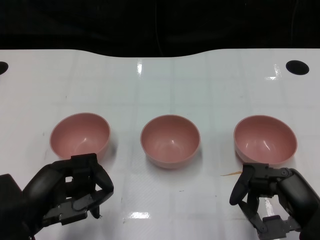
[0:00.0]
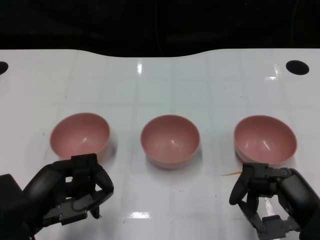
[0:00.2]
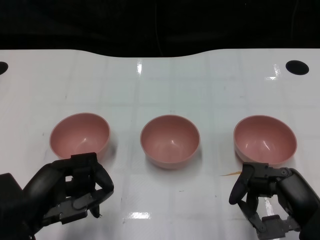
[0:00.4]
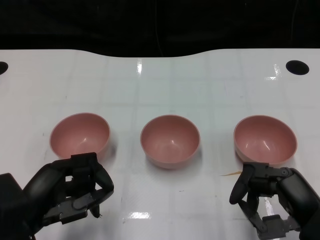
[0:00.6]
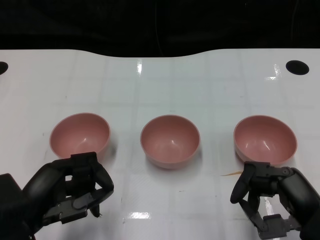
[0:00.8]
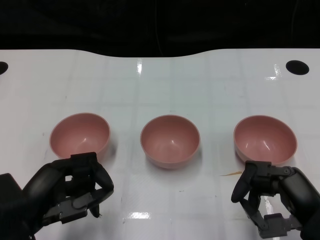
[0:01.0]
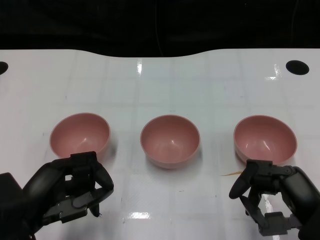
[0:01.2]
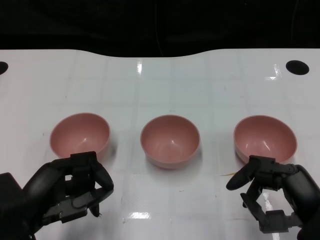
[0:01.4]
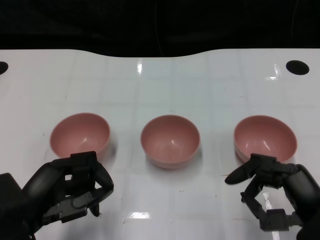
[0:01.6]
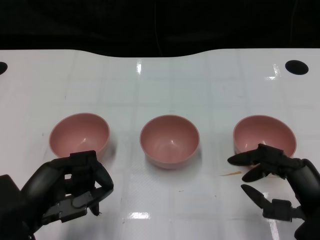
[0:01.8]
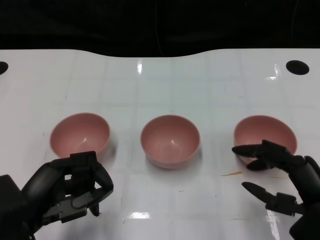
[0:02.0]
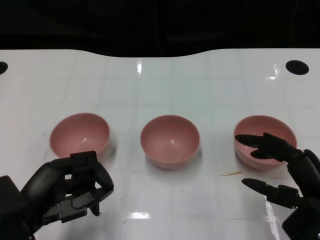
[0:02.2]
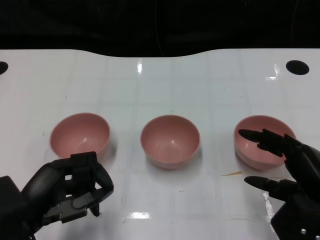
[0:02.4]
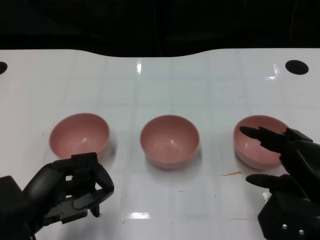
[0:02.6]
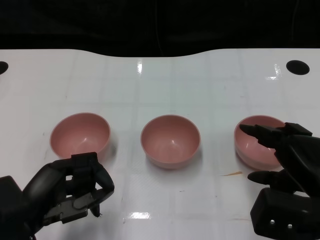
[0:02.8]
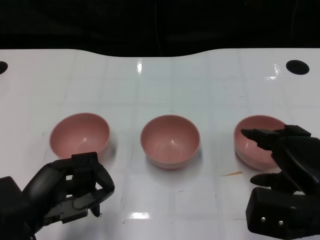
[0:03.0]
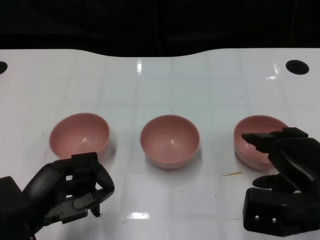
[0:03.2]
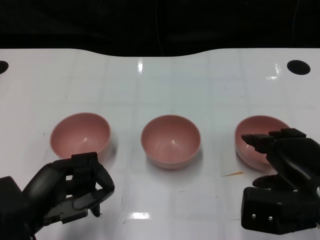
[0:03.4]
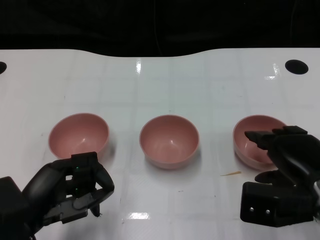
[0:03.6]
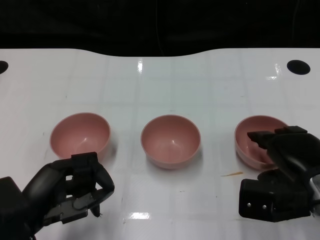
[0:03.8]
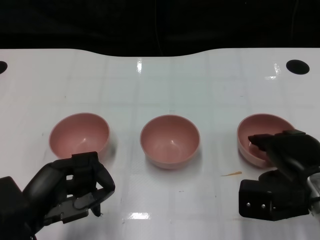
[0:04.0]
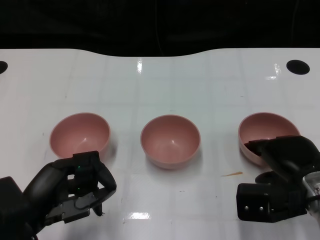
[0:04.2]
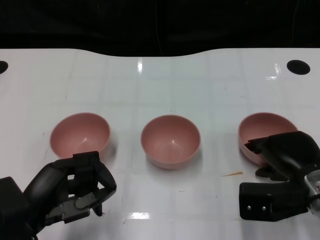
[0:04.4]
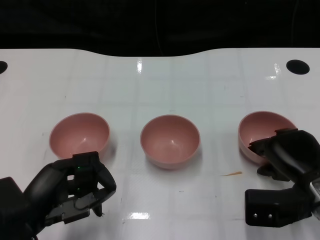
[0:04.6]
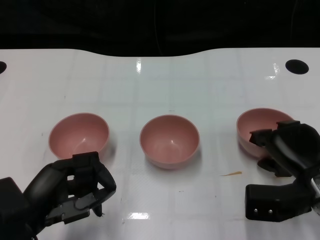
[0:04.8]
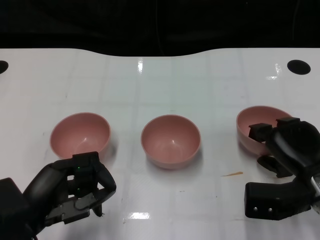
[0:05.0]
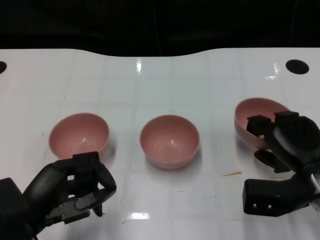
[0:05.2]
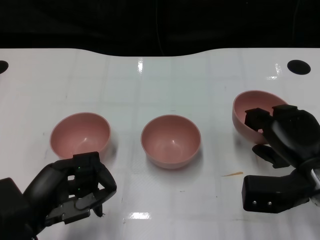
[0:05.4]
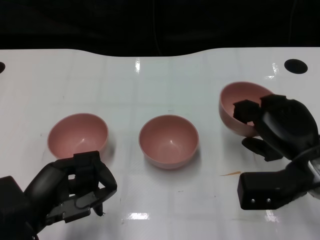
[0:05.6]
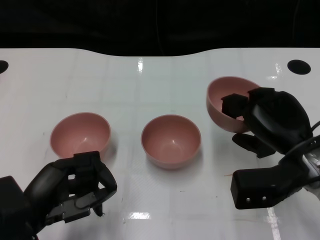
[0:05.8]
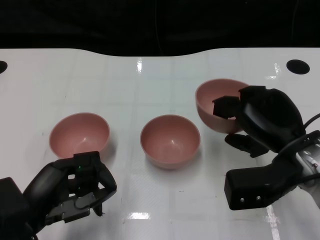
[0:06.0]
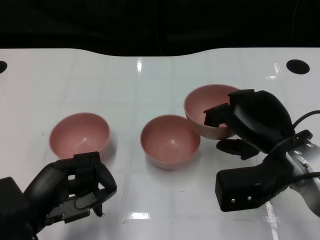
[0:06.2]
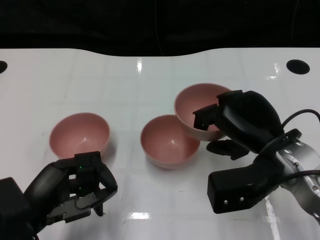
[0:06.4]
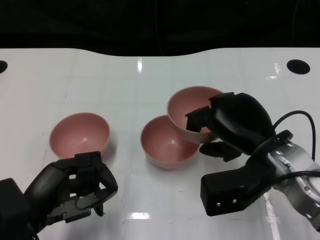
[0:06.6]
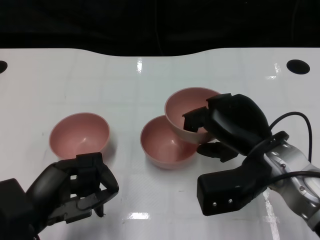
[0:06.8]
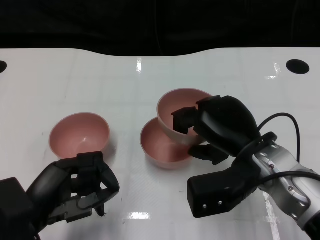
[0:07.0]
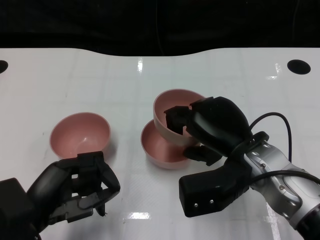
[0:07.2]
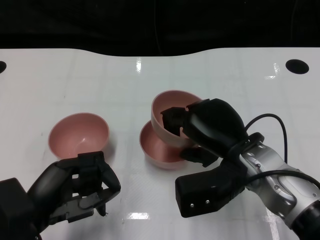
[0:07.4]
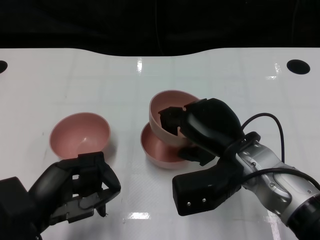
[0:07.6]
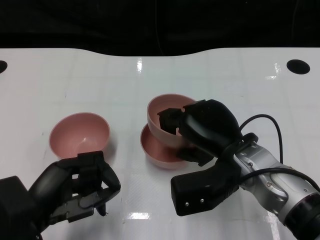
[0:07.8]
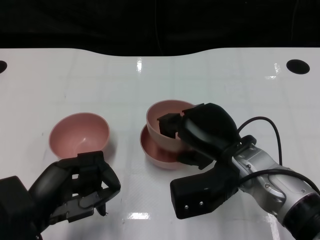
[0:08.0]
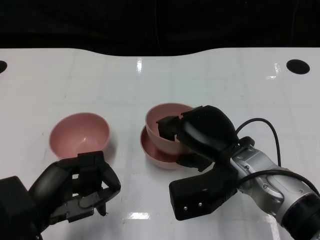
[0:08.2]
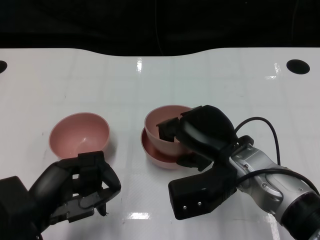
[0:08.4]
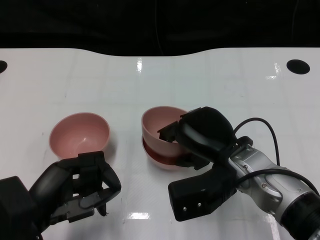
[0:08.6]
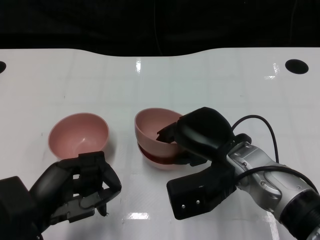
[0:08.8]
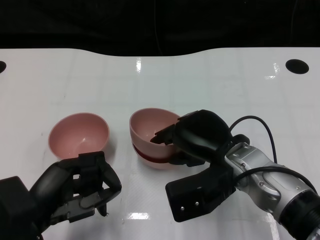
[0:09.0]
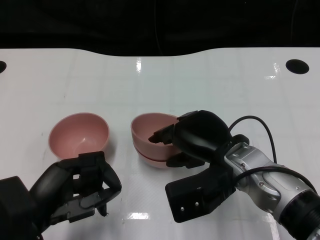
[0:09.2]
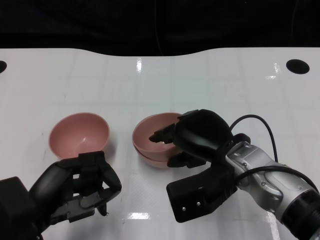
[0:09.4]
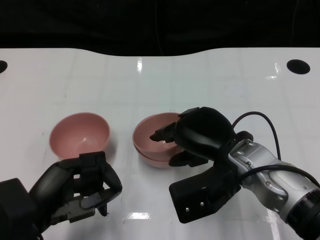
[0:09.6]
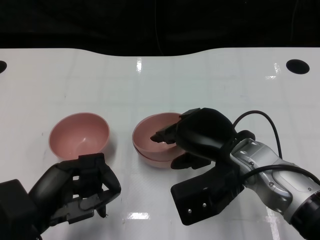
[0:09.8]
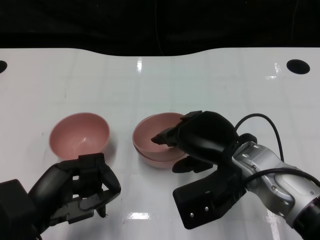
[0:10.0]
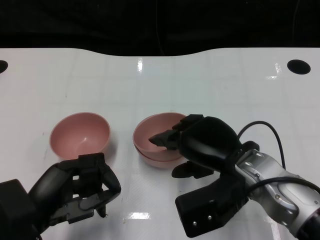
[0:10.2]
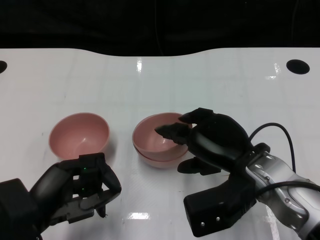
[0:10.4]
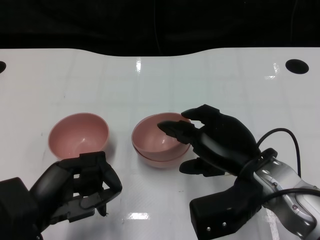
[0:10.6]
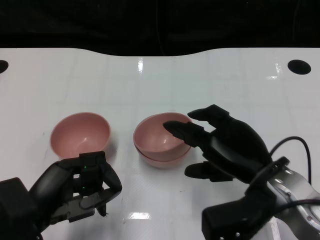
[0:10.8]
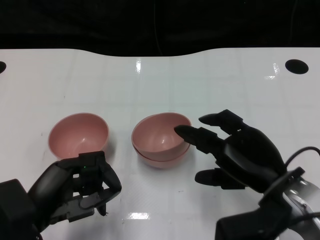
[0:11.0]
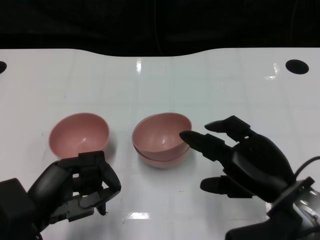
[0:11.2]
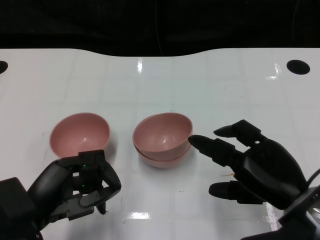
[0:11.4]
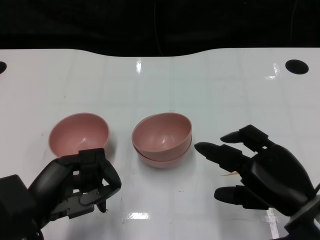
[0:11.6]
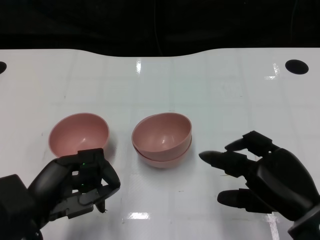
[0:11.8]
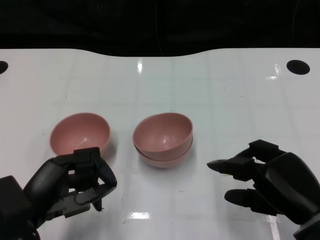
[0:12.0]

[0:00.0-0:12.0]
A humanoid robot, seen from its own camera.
Task of the whole recording: Pick up the bowl on one side of the table and place it on top of the middle bowl, then pick up the bowl on the other side of the table and place it on top of the middle bowls.
Step, 0:01.4 to 0:04.8: Grasp the bowl on the right with the right gripper.
Step, 0:05.2 to 0:10.6: Place the bowl on the right onto the bowl in the middle with right gripper.
0:03.0 to 0:04.4: The right hand is displaced forward by roughly 5 cm.
0:04.4 to 0:06.0: The right hand goes roughly 5 cm upward.
0:06.0 to 0:07.6: The right hand heads to the left, covering some 10 cm.
0:07.6 to 0:10.4: The hands make only small movements.
0:10.4 to 0:12.0: The right hand heads to the right and backward, covering about 10 cm.

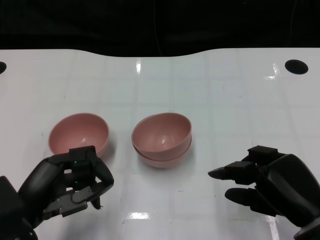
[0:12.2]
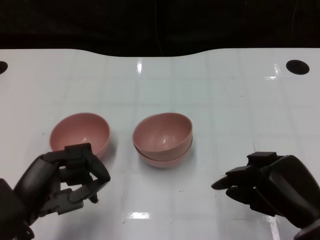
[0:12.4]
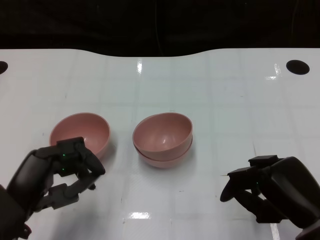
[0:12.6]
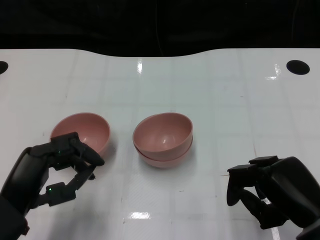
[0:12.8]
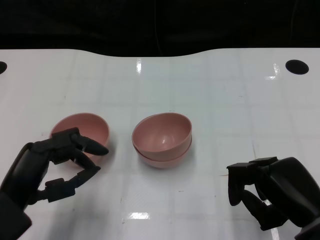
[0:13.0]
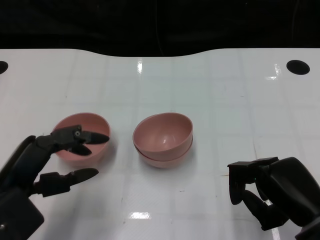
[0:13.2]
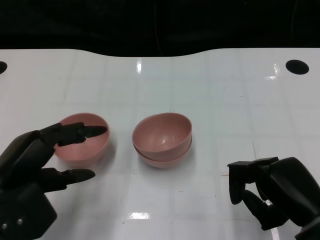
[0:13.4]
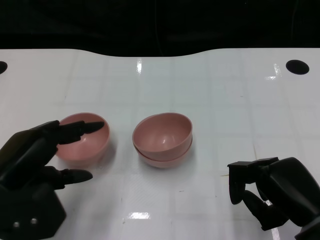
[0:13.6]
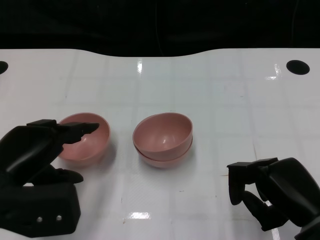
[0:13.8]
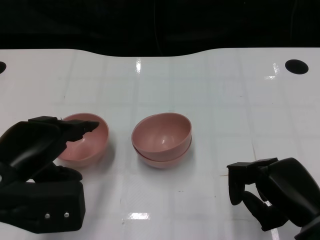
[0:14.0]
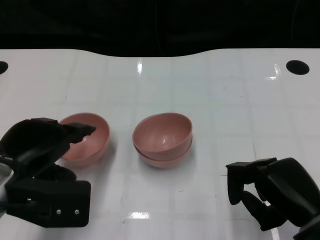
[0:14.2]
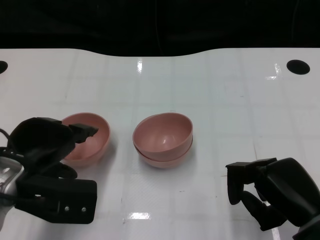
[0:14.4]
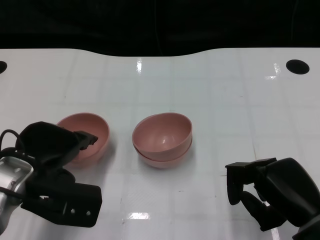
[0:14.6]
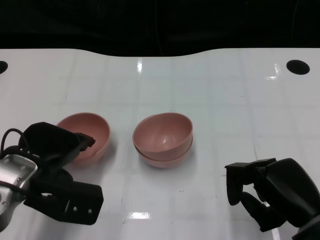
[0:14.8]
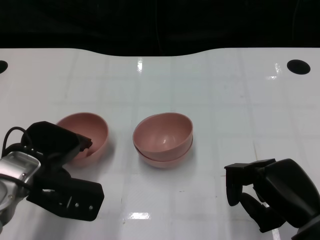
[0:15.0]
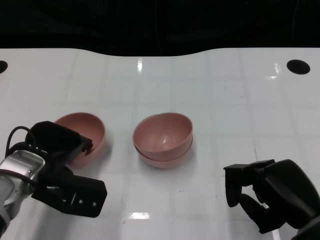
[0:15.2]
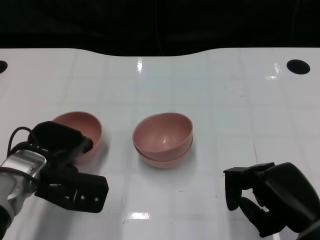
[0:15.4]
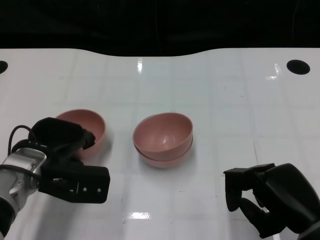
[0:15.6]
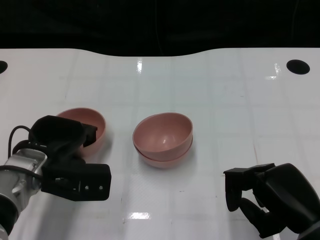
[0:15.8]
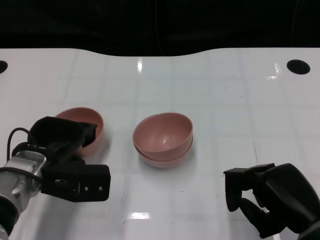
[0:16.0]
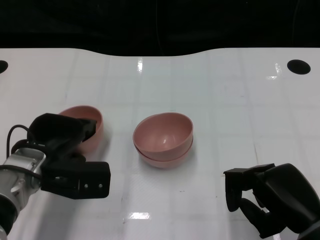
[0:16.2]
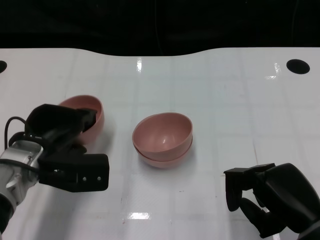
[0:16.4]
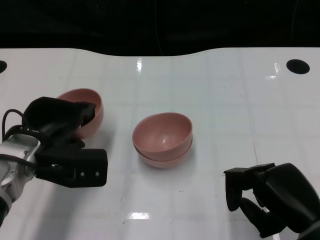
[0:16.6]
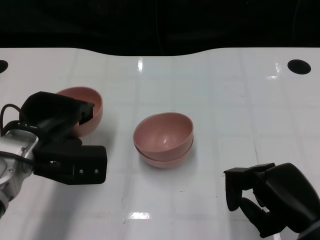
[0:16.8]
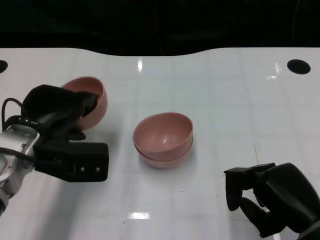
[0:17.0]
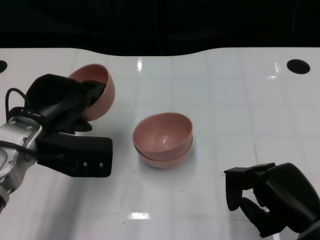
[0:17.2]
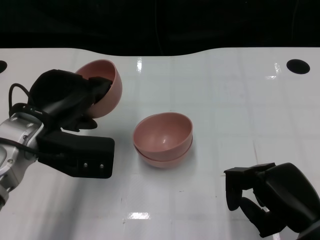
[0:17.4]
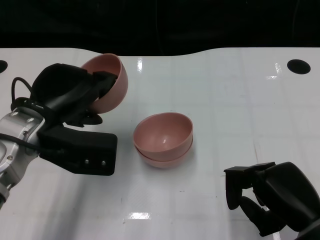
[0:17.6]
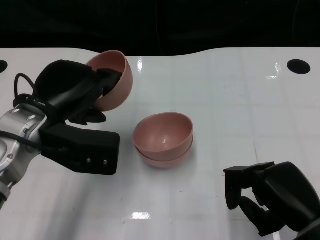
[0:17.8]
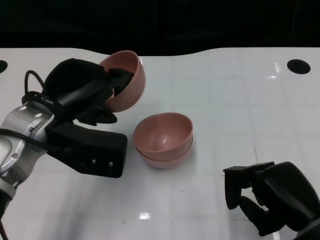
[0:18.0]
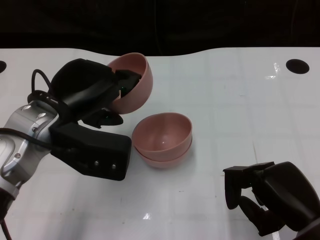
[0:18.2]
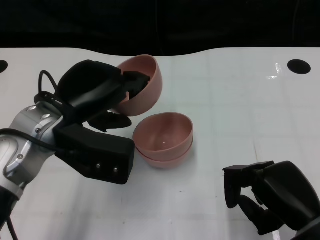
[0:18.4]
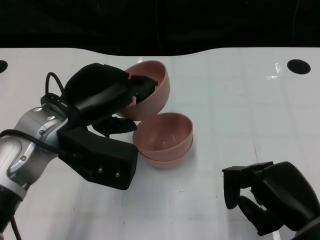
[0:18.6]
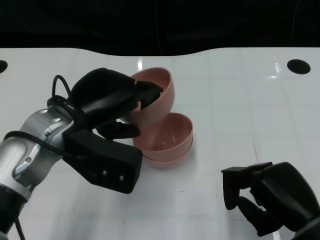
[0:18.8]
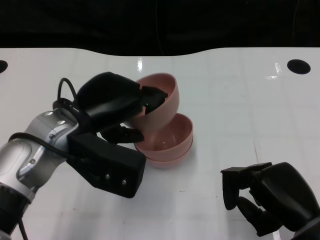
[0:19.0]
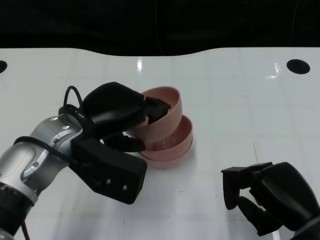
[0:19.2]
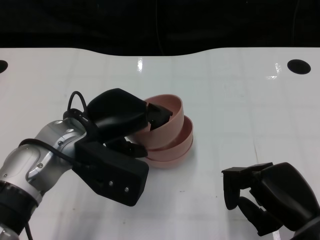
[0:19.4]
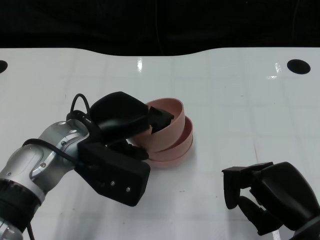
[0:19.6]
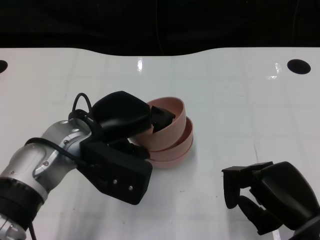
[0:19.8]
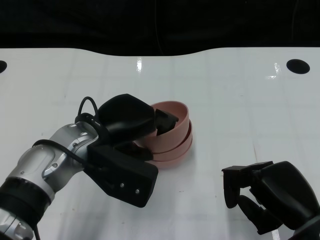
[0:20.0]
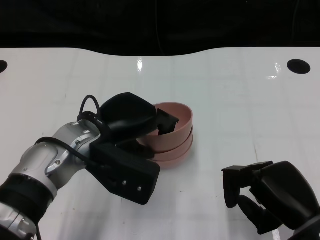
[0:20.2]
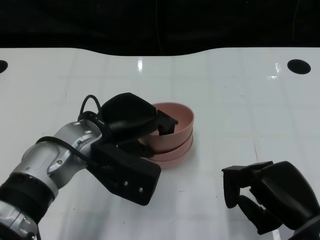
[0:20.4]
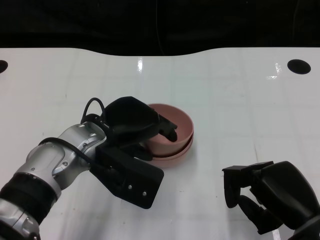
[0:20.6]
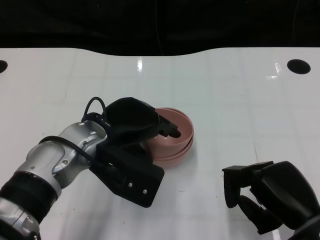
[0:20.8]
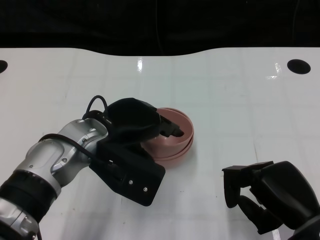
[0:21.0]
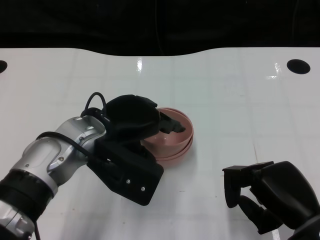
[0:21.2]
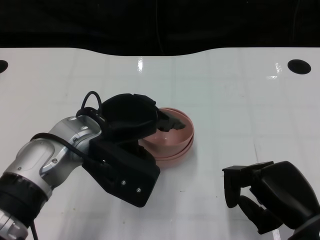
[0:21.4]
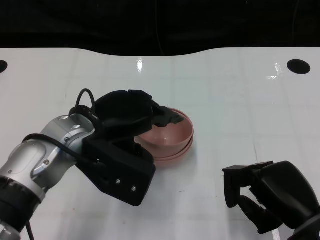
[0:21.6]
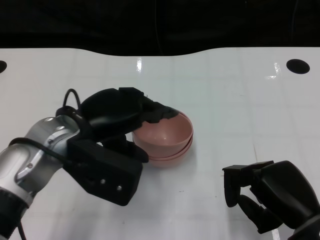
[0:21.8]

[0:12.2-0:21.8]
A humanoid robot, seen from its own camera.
Task of the whole recording: Pick up the bowl on one side of the table and place it on top of the middle bowl, then pick up the bowl on the other side of the table and place it on top of the middle bowls.
Step, 0:12.2 to 0:16.2: Grasp the bowl on the left with the left gripper.
0:12.2 to 0:13.8: The left hand is displaced upward by some 5 cm.
0:13.8 to 0:15.4: The left hand is displaced forward and downward by roughly 10 cm.
0:15.4 to 0:17.0: There are only small adjustments of the hands.
0:17.0 to 0:18.6: The left hand moves upward, about 5 cm.
0:18.6 to 0:20.2: The left hand ends up approximately 5 cm from where it was.
0:20.2 to 0:21.8: The hands move only a little.
